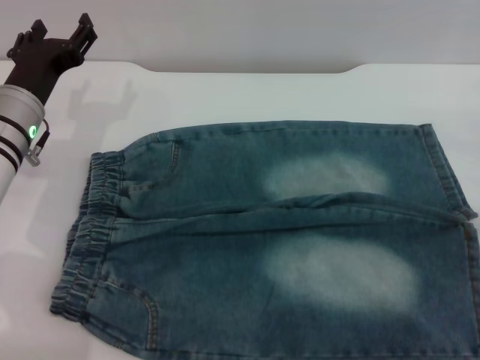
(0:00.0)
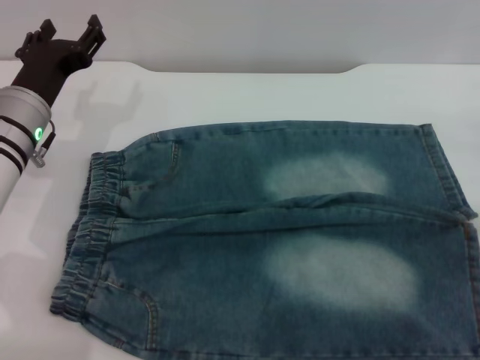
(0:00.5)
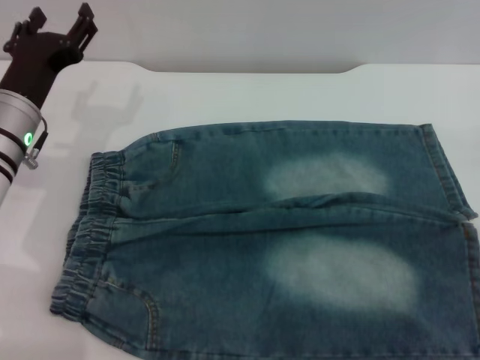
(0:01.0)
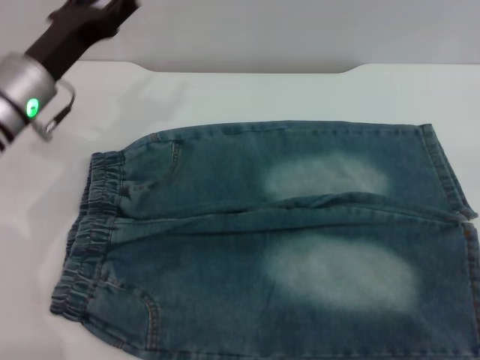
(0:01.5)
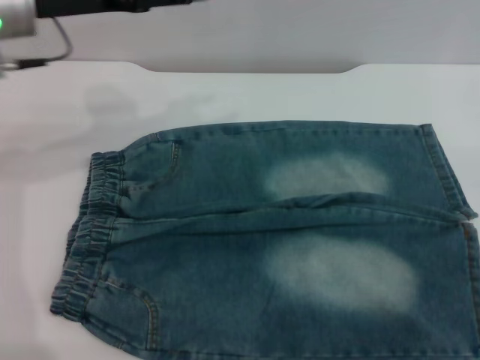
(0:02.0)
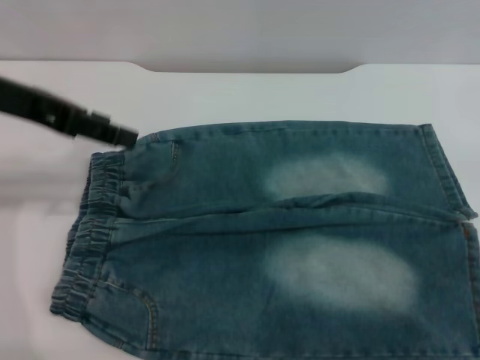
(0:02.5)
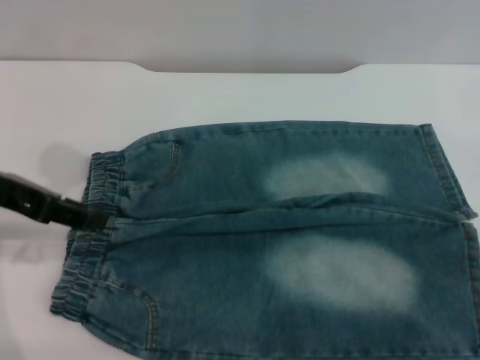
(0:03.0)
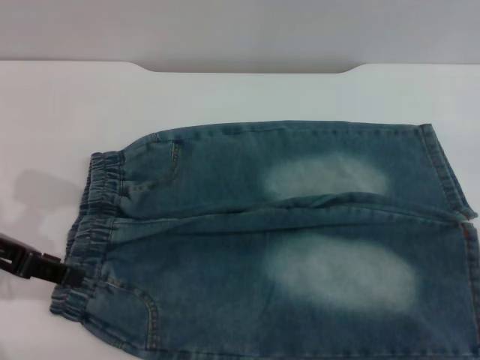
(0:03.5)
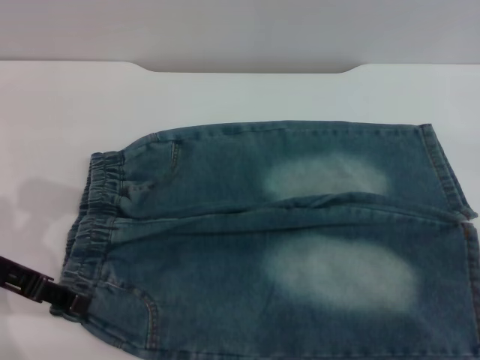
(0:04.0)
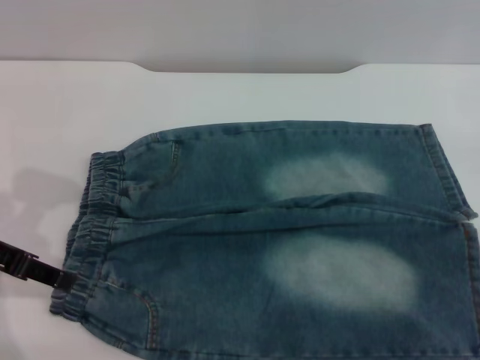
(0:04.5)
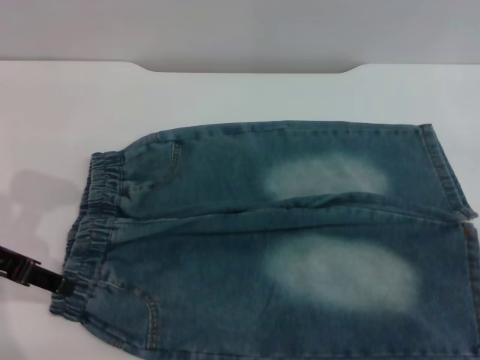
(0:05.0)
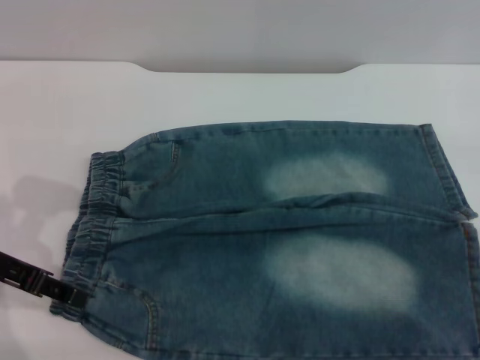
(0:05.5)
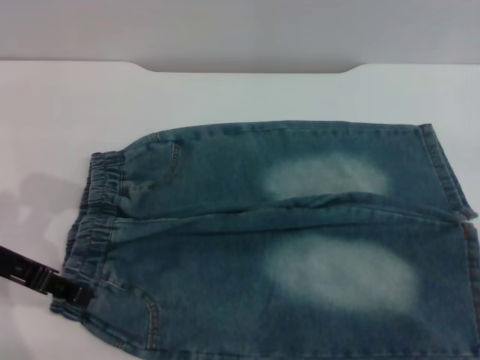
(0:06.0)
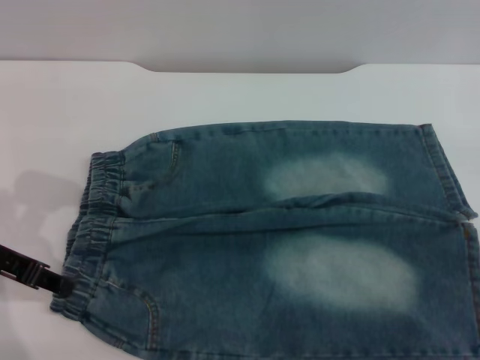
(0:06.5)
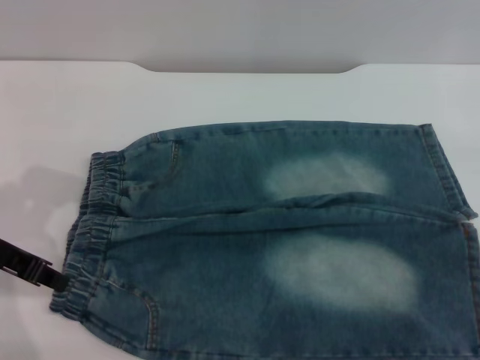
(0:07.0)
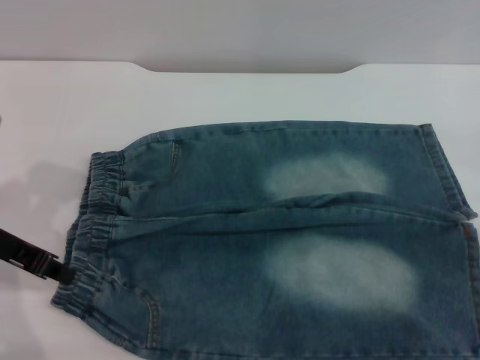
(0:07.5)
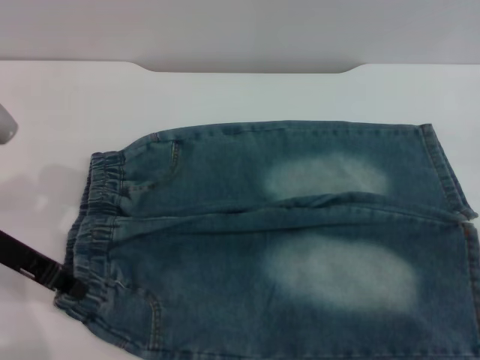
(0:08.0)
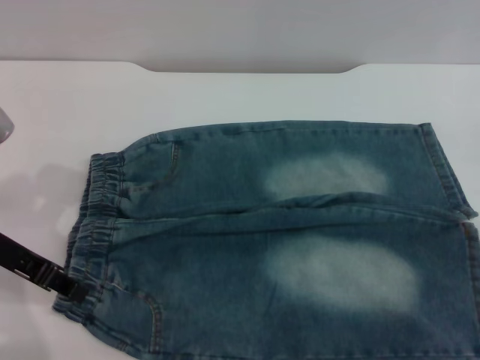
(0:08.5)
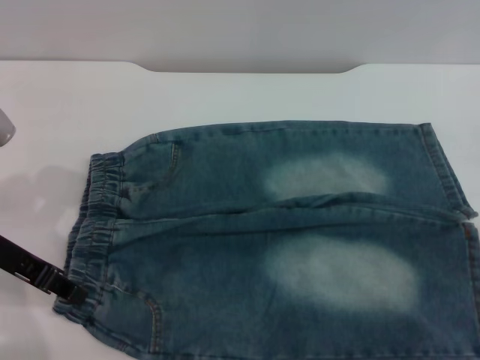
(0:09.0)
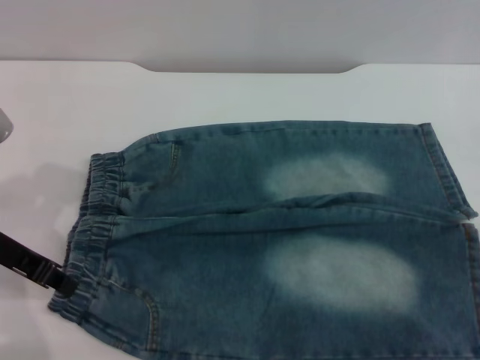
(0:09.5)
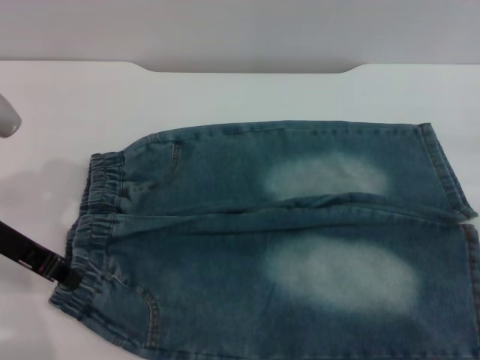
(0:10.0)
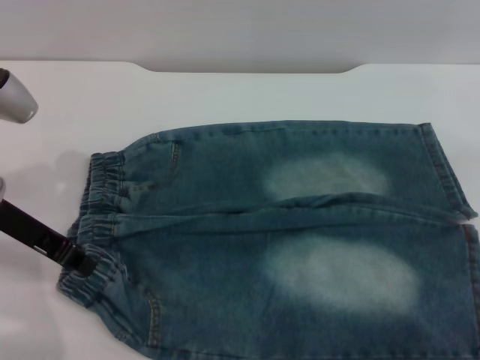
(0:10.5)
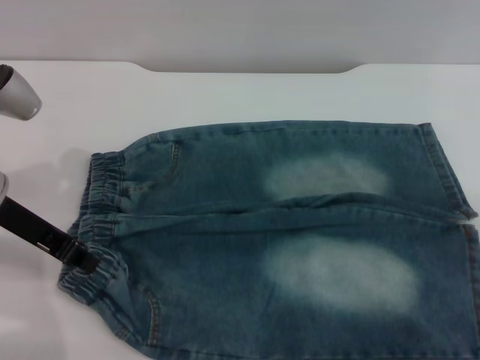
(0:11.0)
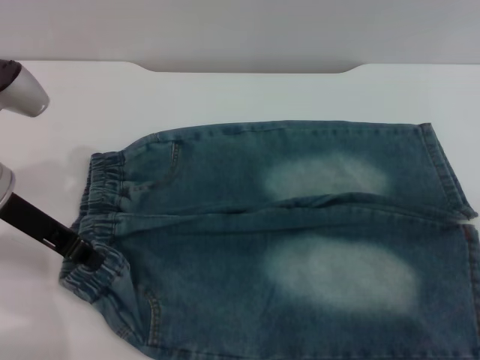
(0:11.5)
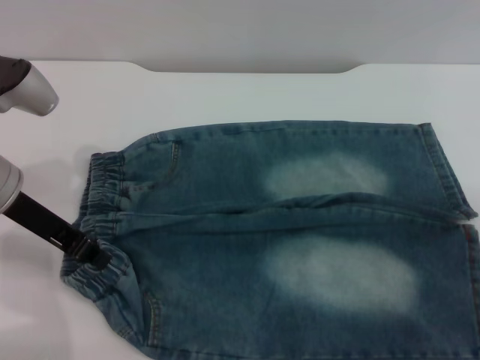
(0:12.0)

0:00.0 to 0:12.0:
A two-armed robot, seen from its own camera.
0:00.0 to 0:02.0: The left gripper is displaced upward by some 10 cm.
0:02.0 to 0:04.0: The left gripper travels backward, to the left and downward by approximately 15 cm.
0:04.0 to 0:06.0: The grippers make only small movements.
0:06.0 to 0:08.0: The left gripper closes up.
0:08.0 to 0:10.0: The grippers make only small movements.

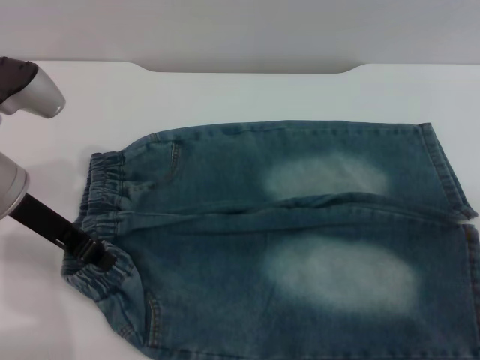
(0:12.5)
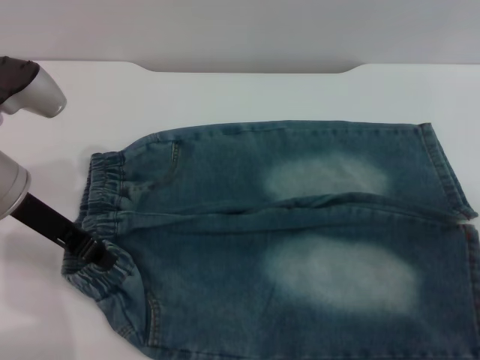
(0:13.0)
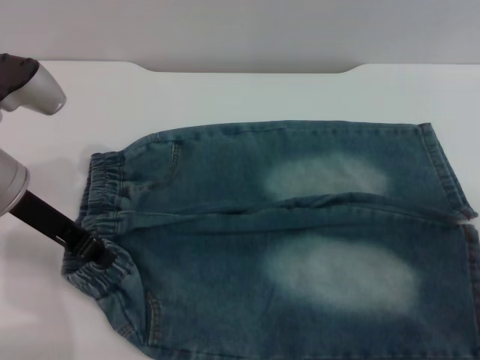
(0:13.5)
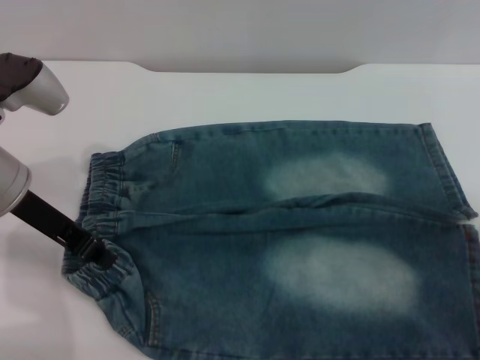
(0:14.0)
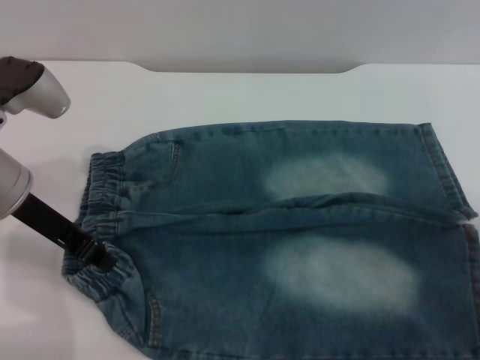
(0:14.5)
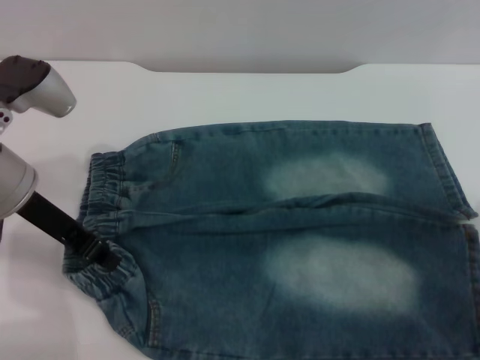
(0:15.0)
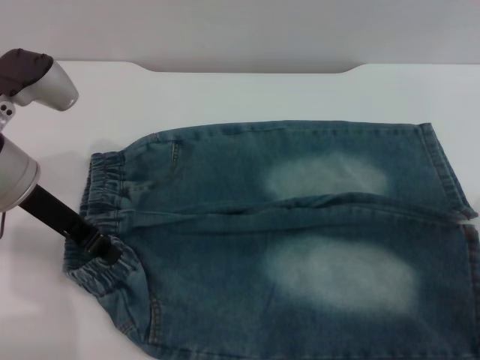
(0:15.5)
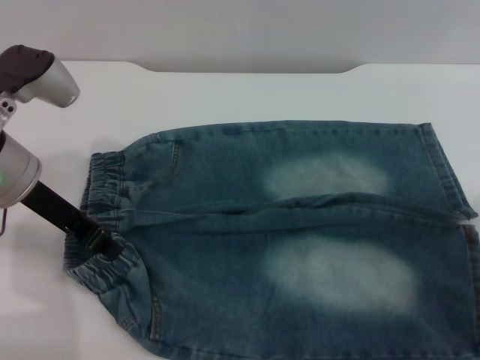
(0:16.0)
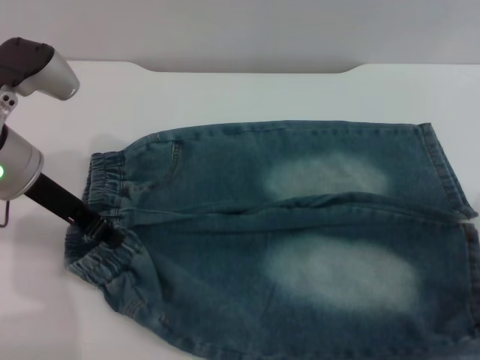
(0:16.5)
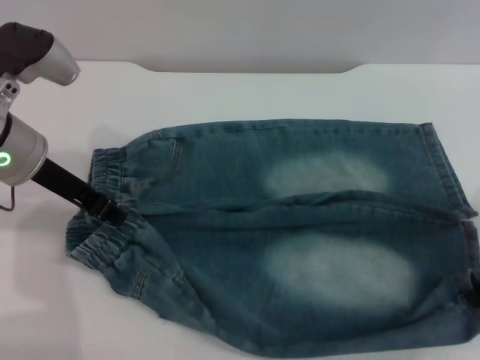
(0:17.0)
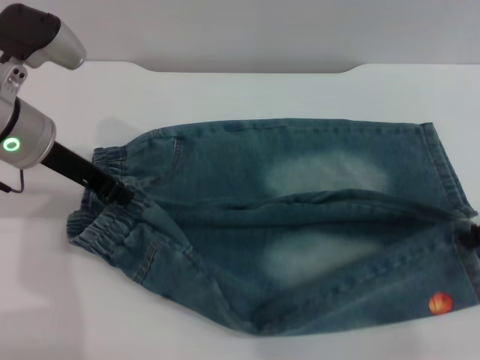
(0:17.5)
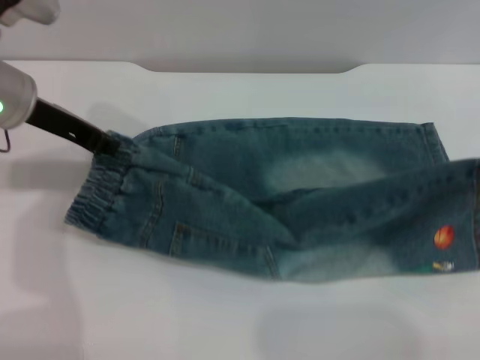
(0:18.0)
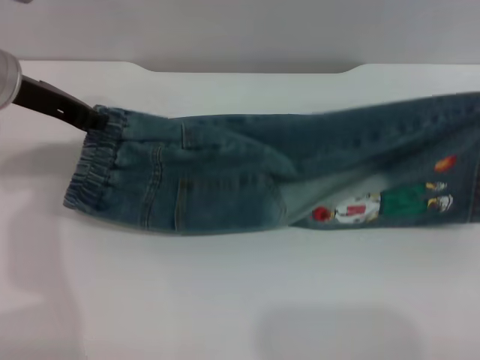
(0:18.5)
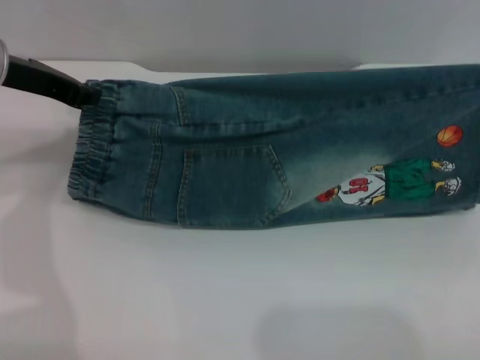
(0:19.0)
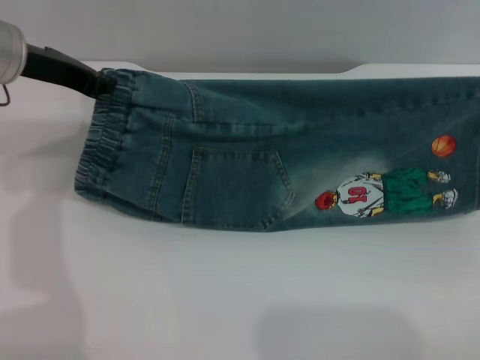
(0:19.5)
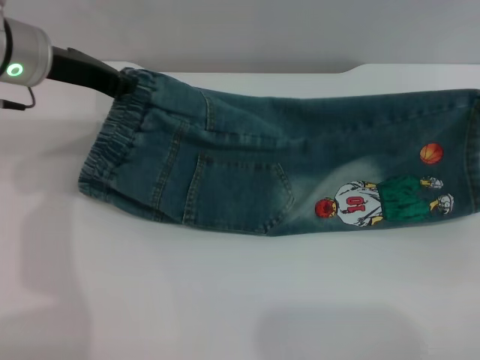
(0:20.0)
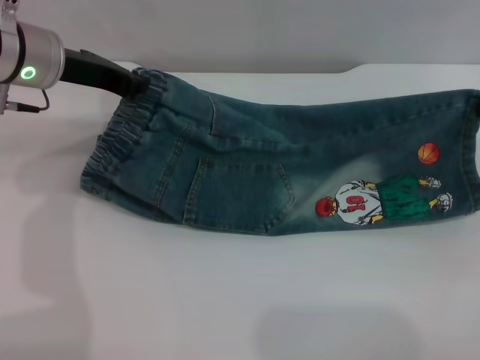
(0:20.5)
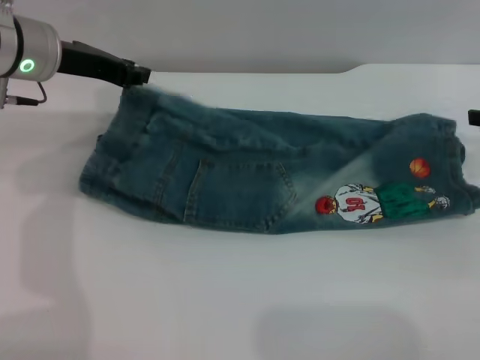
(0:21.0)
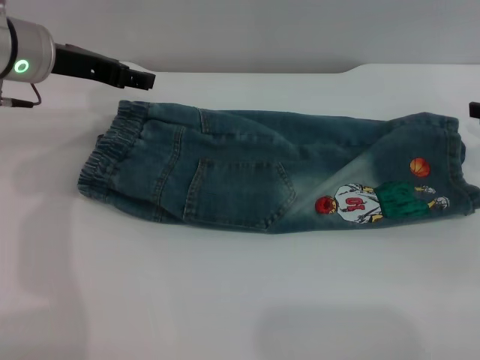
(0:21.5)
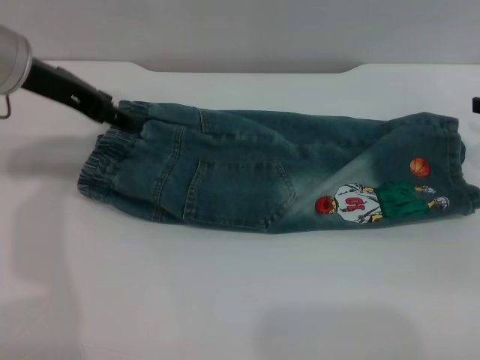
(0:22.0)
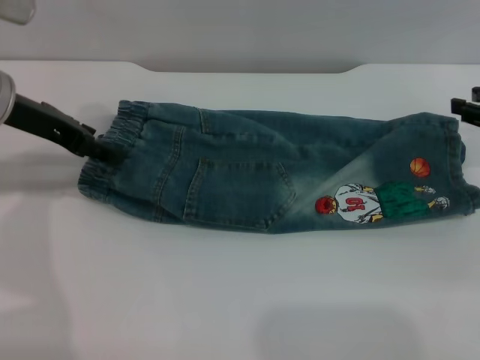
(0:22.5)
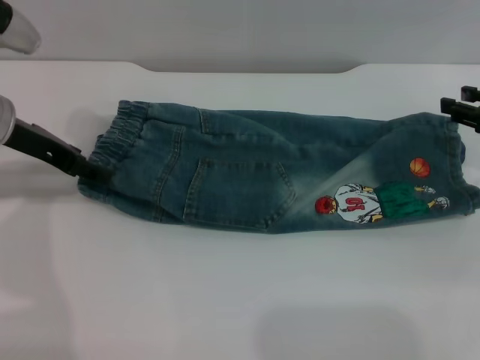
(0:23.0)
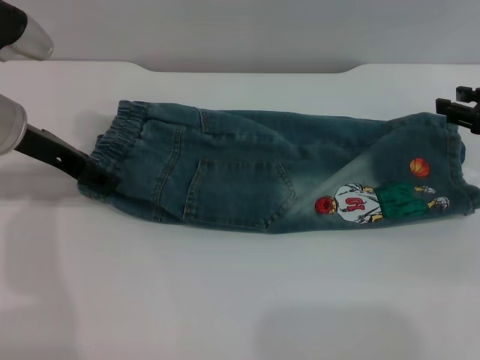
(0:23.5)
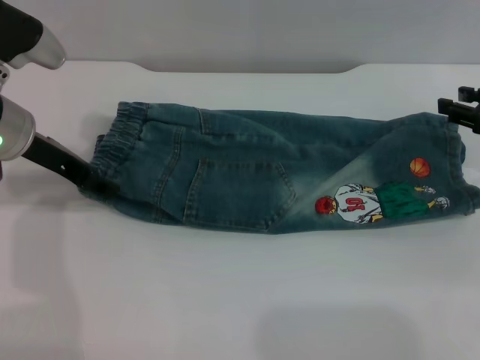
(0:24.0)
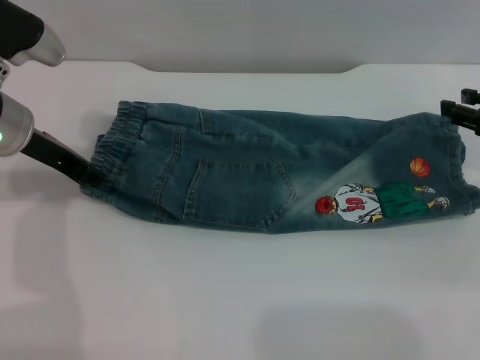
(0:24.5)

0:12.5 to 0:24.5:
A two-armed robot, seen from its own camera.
Step, 0:12.5 to 0:21.0: Fold the bottom of the pants upward with both grippers.
0:12.5 to 0:14.5: There are only small adjustments of the grippers.
0:16.5 to 0:18.5: The left gripper changes place by some 5 cm; the right gripper travels upward and to the right by about 10 cm.
0:18.5 to 0:20.5: The right gripper shifts about 5 cm downward.
0:20.5 to 0:22.5: The right gripper opens. The left gripper opens up.
0:22.5 to 0:24.5: The left gripper closes up.

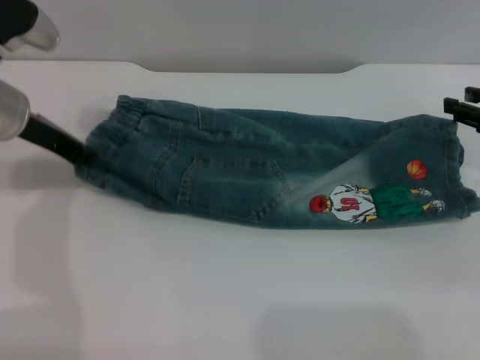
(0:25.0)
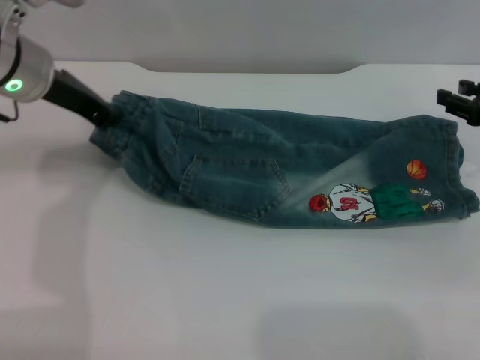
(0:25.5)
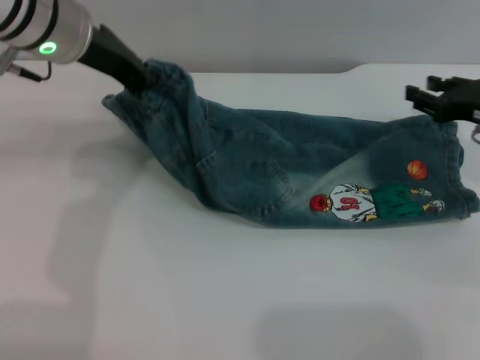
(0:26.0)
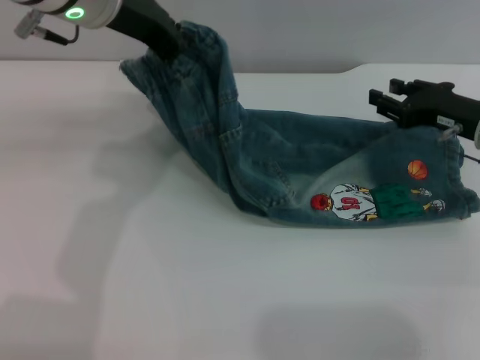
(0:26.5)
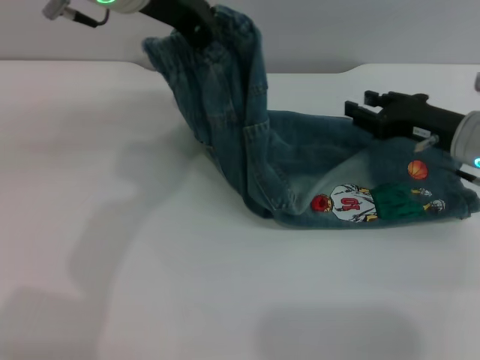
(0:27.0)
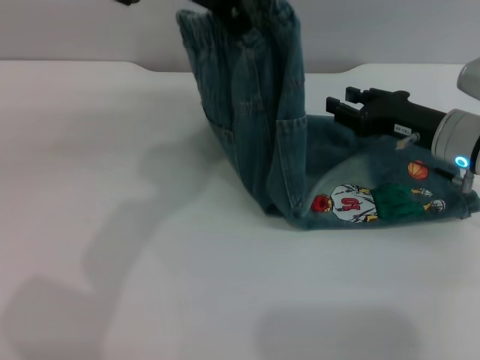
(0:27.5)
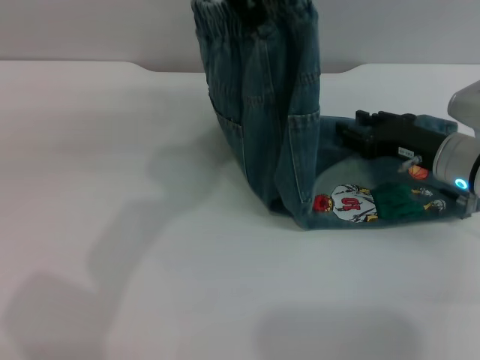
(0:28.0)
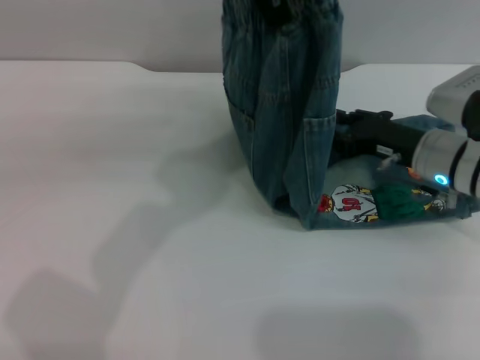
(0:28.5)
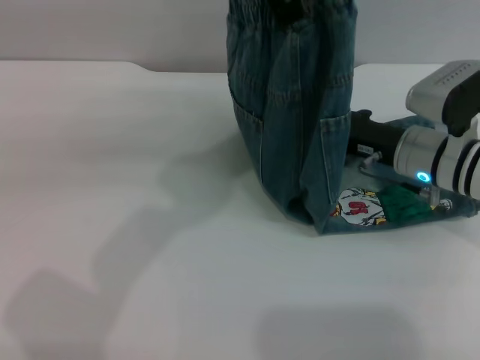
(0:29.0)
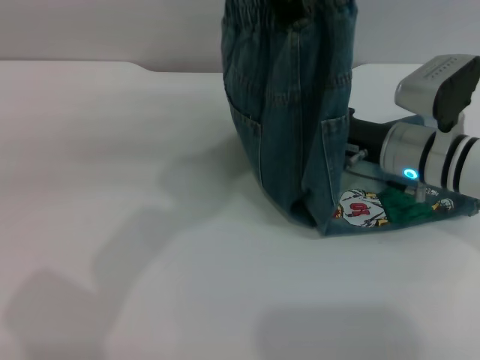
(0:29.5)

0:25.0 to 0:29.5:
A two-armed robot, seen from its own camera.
0:25.0 to 0:27.0: The right gripper moves to the left, approximately 10 cm, while the left gripper goes some 20 cm to the right and upward.
0:27.0 to 0:29.5: The left gripper moves to the right, about 5 cm. The right gripper is displaced to the left by about 5 cm.
